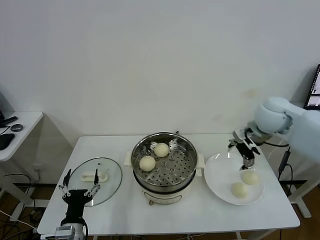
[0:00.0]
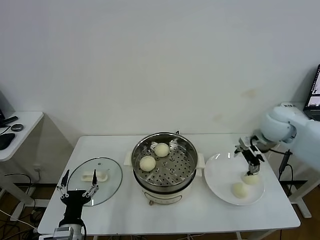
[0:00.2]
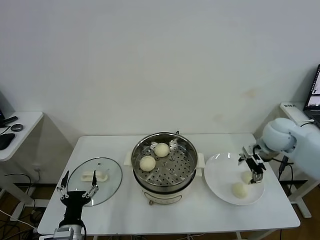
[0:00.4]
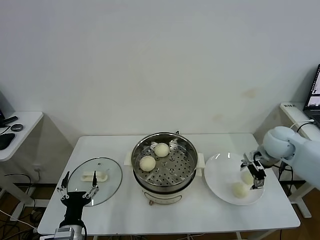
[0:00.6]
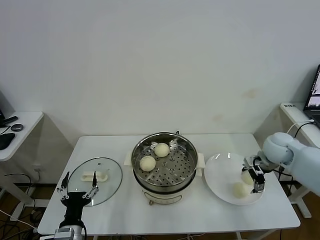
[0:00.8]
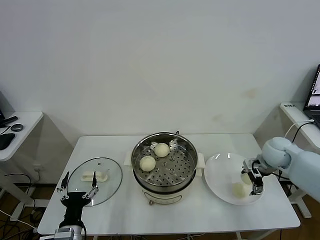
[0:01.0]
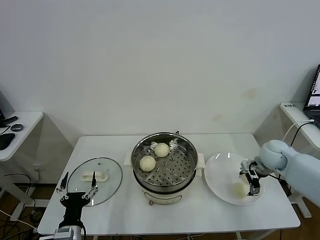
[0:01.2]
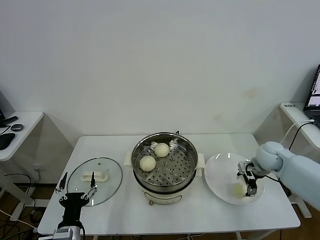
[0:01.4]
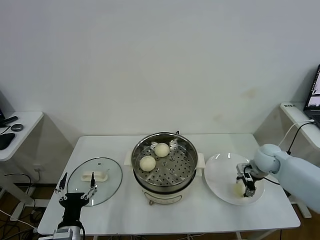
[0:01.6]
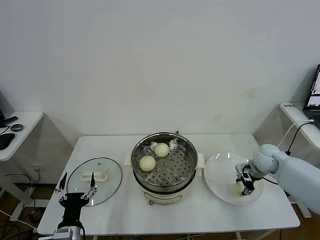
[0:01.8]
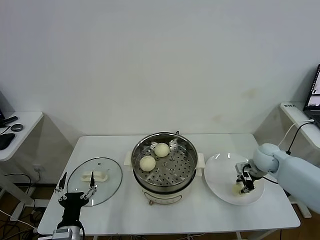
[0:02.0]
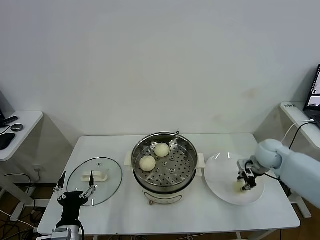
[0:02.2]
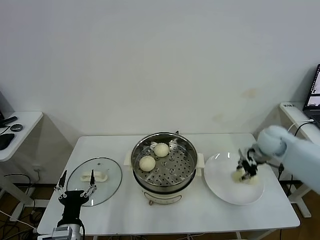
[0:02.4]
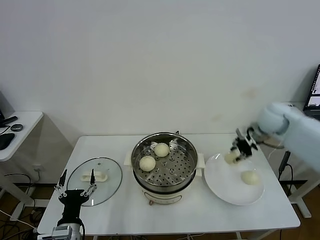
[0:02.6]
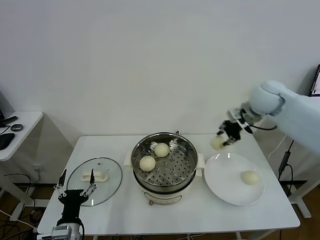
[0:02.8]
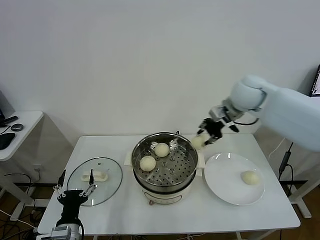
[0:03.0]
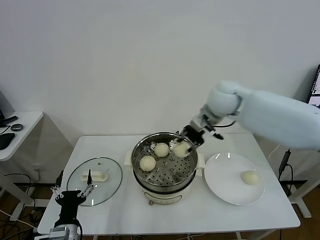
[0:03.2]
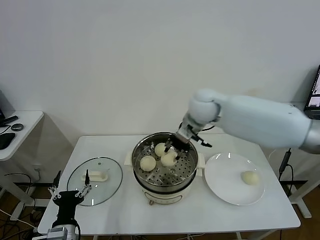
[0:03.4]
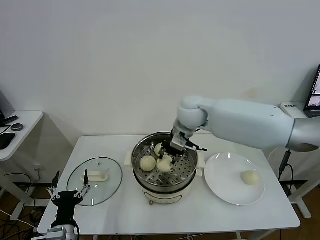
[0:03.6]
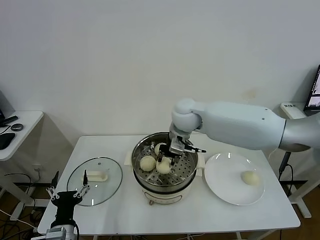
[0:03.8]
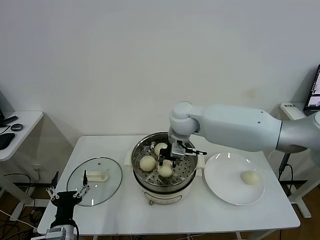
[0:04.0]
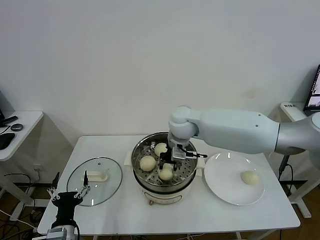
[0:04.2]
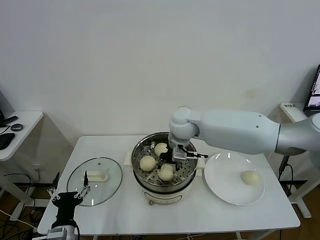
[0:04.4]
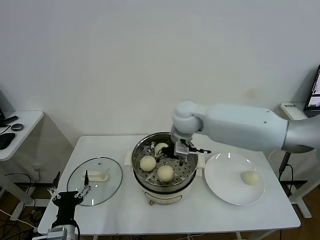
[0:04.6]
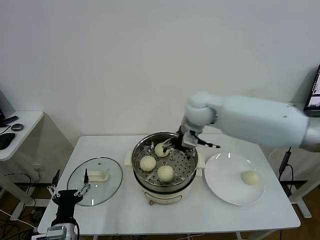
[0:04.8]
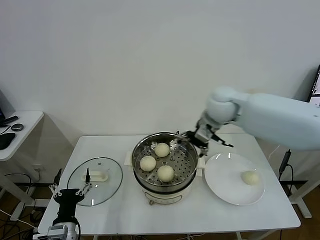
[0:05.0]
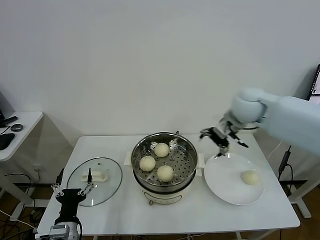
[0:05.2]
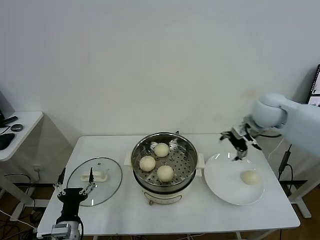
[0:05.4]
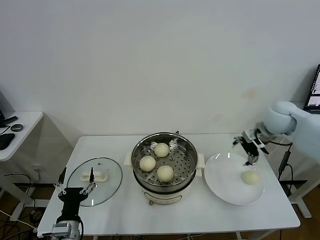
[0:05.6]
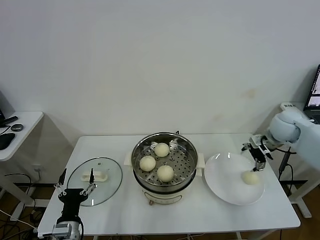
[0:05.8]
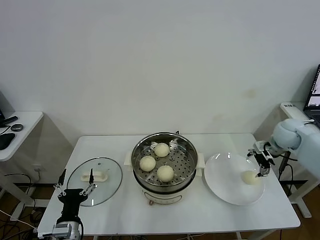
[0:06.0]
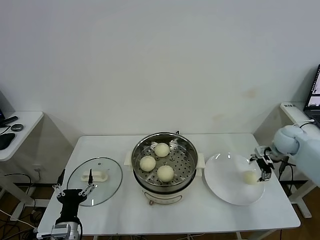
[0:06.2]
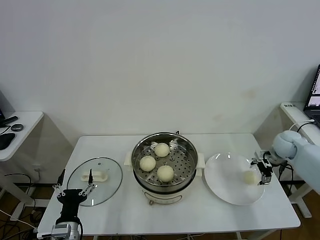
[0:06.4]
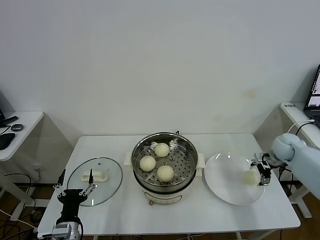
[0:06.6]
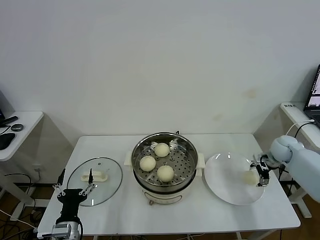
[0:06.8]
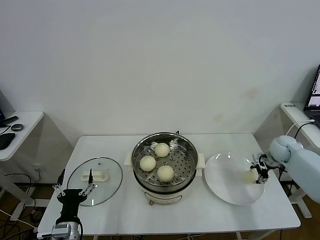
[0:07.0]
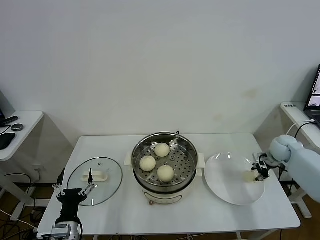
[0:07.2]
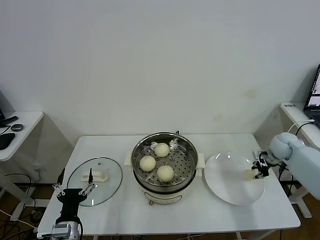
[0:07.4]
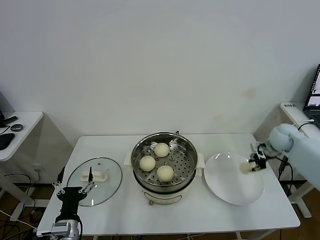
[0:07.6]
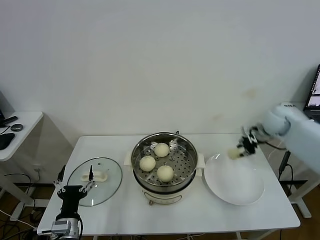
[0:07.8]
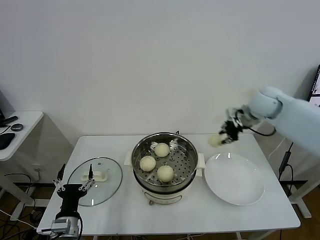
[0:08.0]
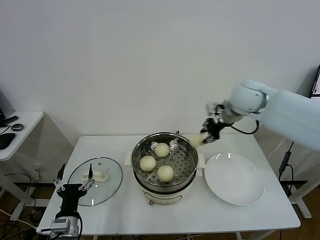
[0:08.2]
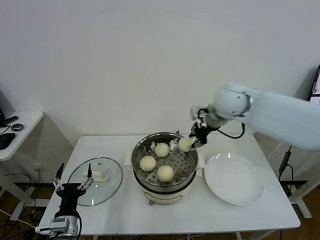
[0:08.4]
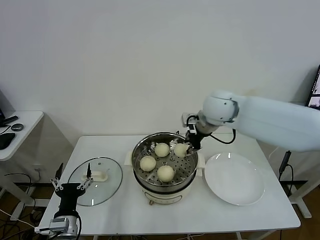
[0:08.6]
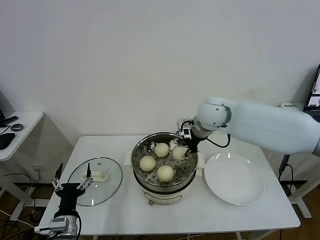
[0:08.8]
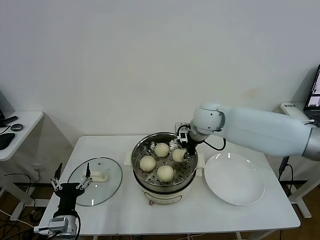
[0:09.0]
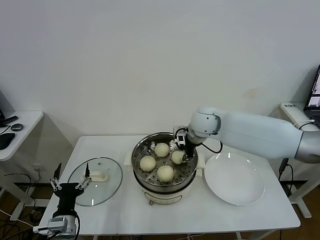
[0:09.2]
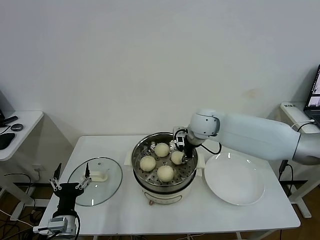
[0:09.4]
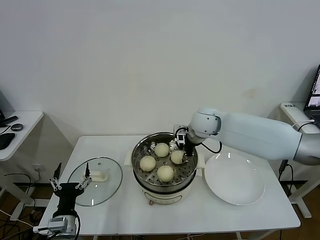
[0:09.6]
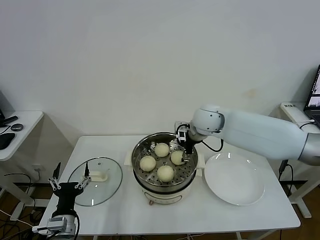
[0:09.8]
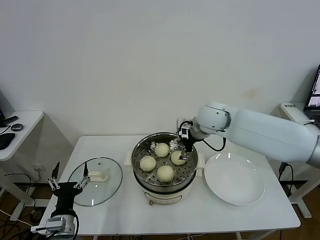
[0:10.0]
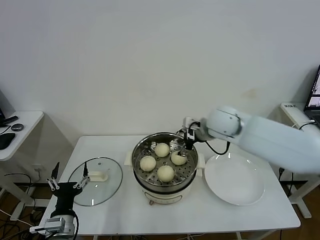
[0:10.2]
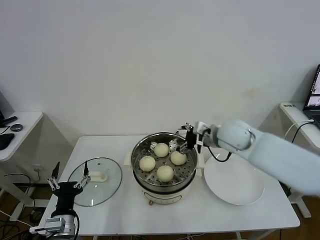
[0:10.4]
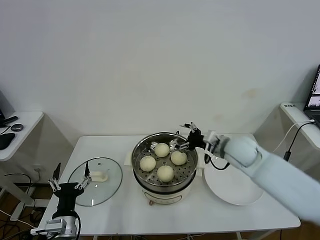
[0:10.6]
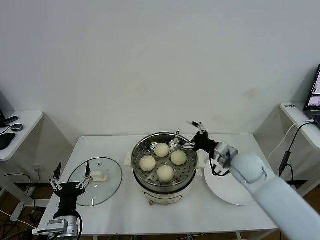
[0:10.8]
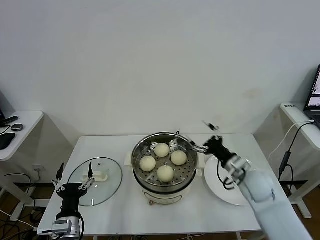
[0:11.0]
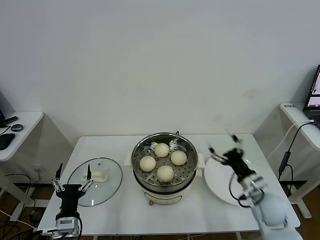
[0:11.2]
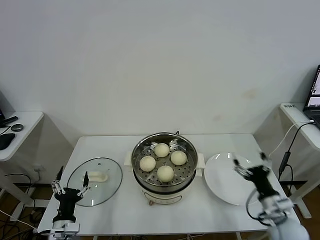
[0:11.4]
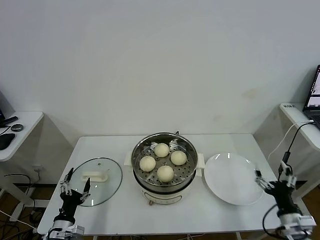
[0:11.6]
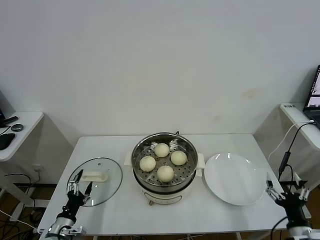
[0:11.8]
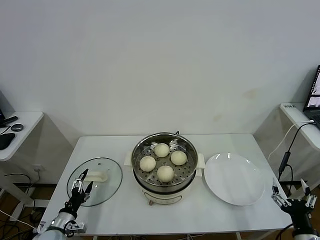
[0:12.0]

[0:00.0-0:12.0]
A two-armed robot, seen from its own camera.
Task of the whole recording: take steamed baozi put them in steamer.
Step, 0:00.0 to 0:01.8: Grasp the baozi in the plate with right gripper.
Step, 0:02.0 to 0:04.6: Place the baozi on the steamer with right gripper.
Step, 0:04.8 to 0:07.0: Grasp the baozi in the plate with right gripper.
Step, 0:07.2 to 0:09.8: Place the baozi on the steamer with right gripper.
0:00.0 to 0:01.6: The right gripper goes approximately 20 cm downward, and closes up.
0:01.6 to 0:03.0: The right gripper travels upward and to the left by some 30 cm, and closes up.
0:03.0 to 0:04.4: The right gripper goes approximately 20 cm to the left and downward, and opens.
0:04.4 to 0:06.0: The right gripper goes some 35 cm to the right, and opens its fingers.
0:06.0 to 0:07.6: The right gripper moves about 10 cm downward and comes back, and closes its fingers.
0:07.6 to 0:09.0: The right gripper shifts some 30 cm to the left.
0:09.0 to 0:10.4: The right gripper travels to the right and backward by approximately 10 cm, and opens up.
0:10.4 to 0:12.0: The right gripper shifts roughly 40 cm backward, downward and to the right, while the left gripper is displaced downward and to the left by about 15 cm.

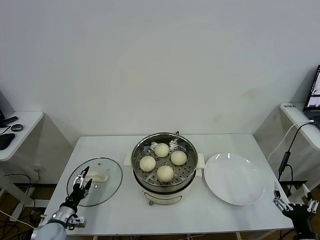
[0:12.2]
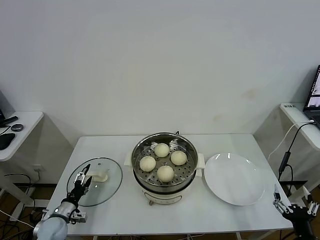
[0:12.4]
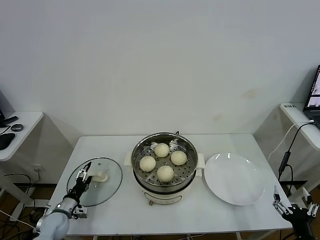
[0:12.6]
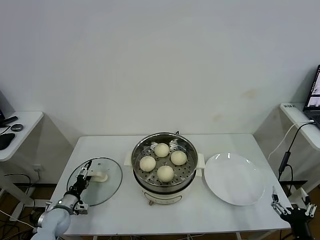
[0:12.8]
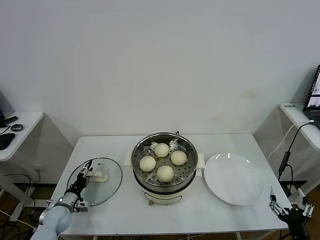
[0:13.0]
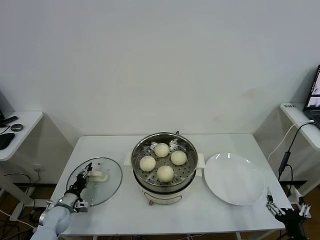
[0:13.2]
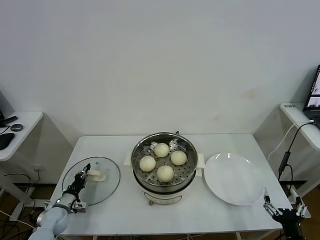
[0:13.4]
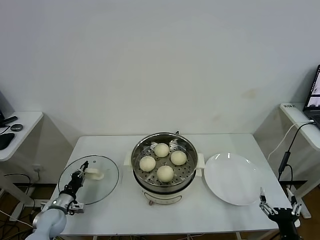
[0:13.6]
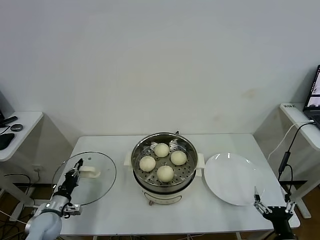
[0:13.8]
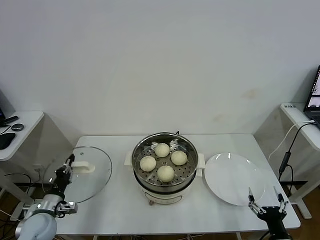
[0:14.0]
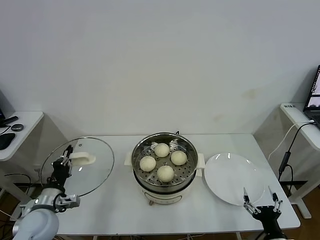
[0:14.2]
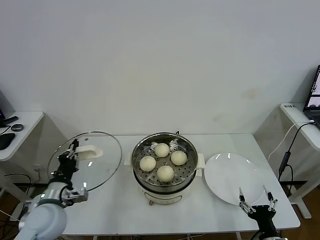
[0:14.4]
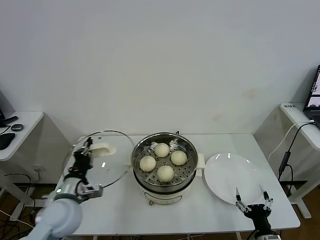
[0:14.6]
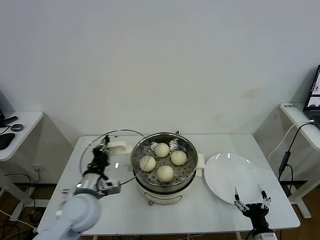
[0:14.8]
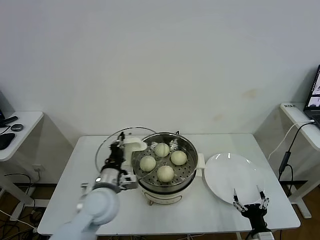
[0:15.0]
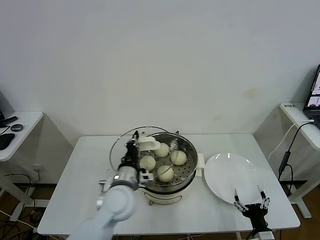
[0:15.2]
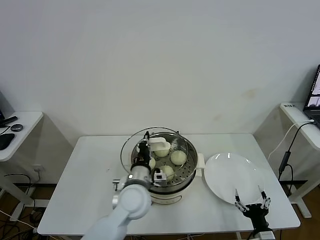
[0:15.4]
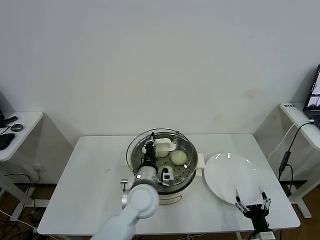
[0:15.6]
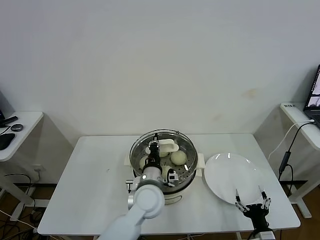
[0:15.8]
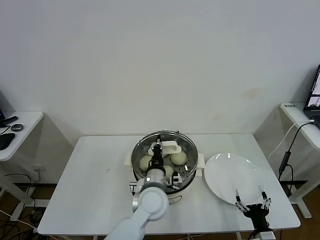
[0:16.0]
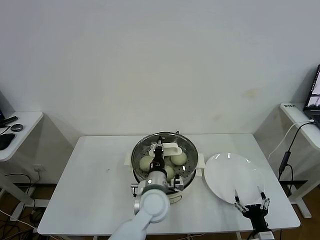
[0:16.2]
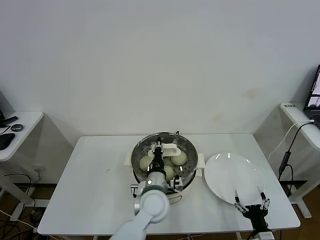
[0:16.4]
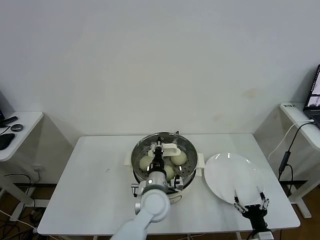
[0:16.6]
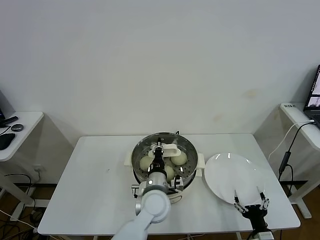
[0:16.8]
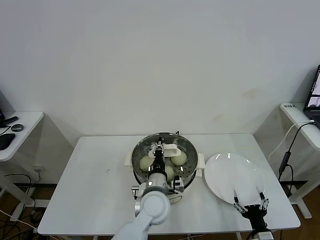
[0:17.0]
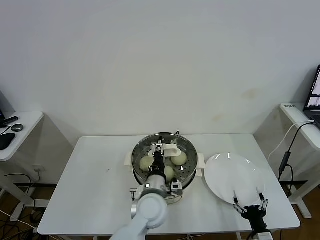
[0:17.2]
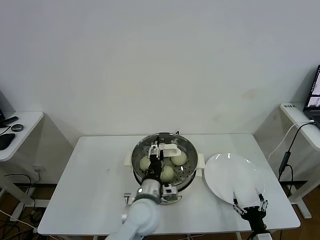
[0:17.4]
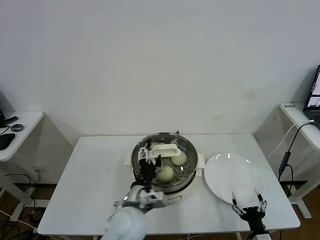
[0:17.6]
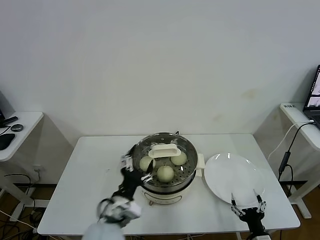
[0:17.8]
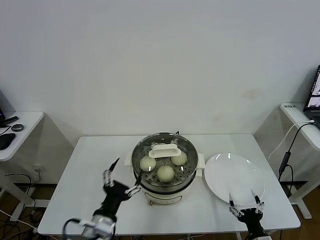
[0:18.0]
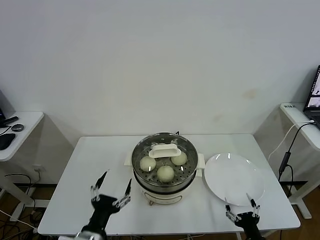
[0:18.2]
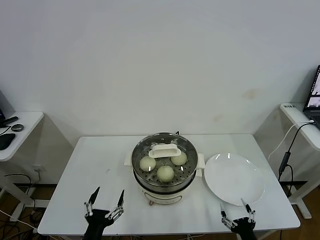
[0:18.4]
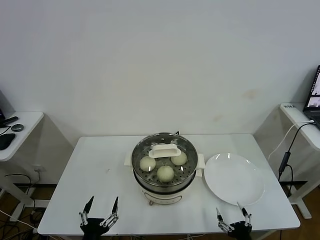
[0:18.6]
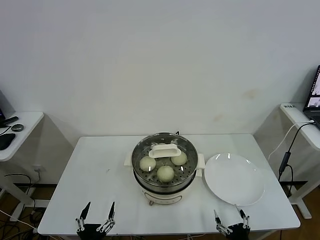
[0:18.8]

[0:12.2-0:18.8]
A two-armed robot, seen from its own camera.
Task of the whole recording: take steamed baozi put them in steamer.
Step, 0:13.8 to 0:17.4: Place the pot lid on the steamer with left gripper.
0:12.2 to 0:13.8: The left gripper closes up.
0:13.8 to 0:15.4: The left gripper shifts approximately 35 cm to the right and upward, while the right gripper moves roughly 5 cm.
0:15.4 to 0:17.2: The left gripper moves to the right, approximately 5 cm, and opens.
0:17.2 to 0:18.8: The right gripper shifts about 5 cm backward. The left gripper goes roughly 30 cm backward and to the left, and opens its fingers.
